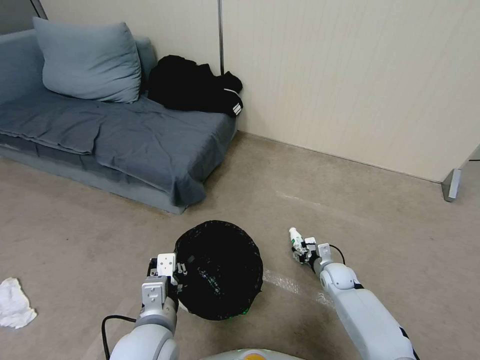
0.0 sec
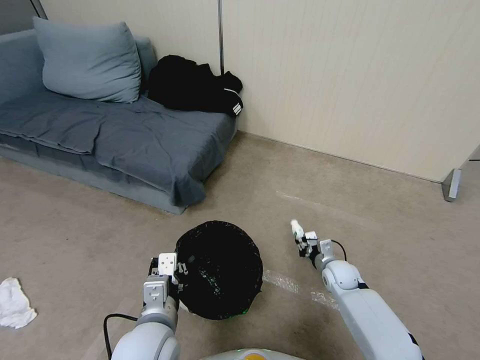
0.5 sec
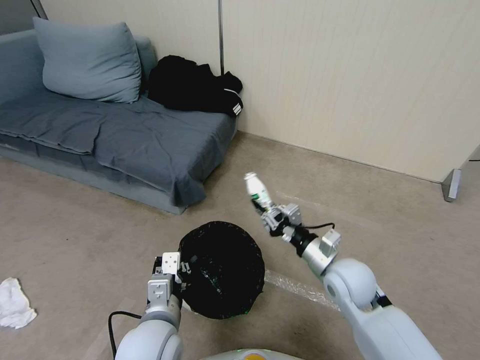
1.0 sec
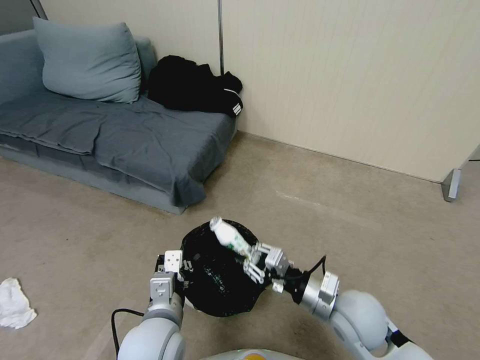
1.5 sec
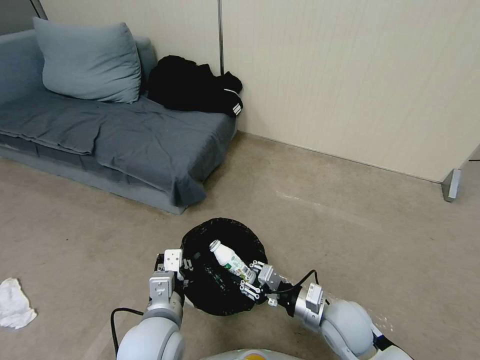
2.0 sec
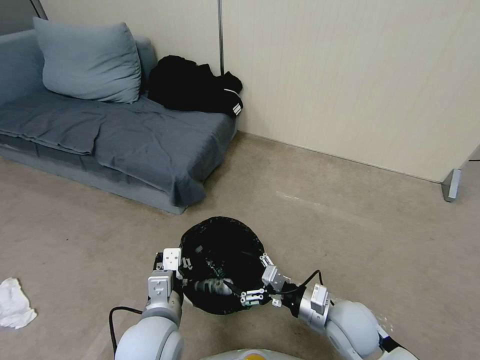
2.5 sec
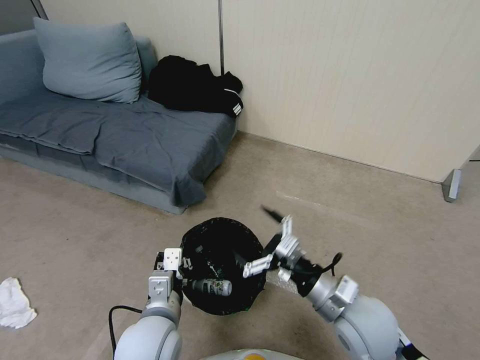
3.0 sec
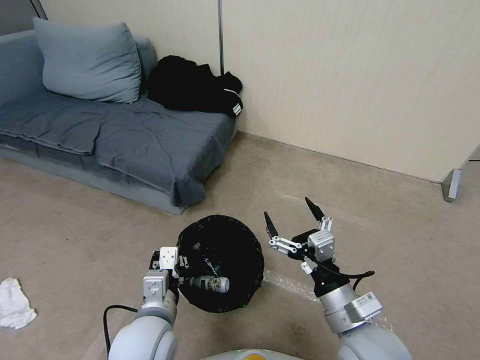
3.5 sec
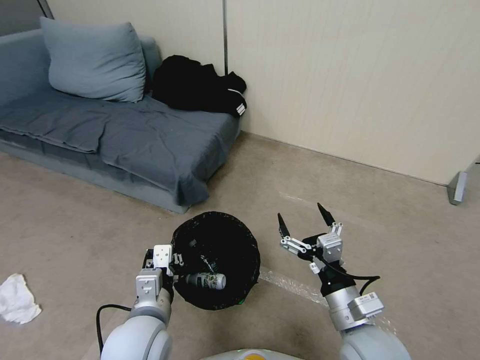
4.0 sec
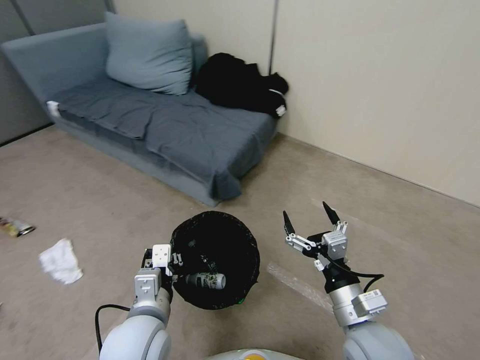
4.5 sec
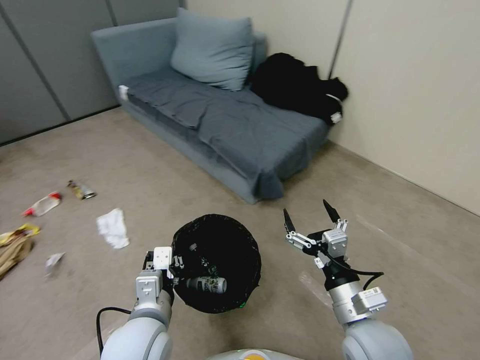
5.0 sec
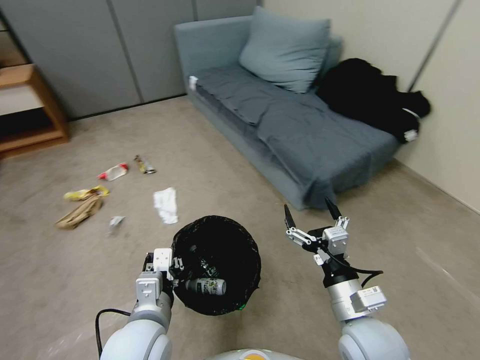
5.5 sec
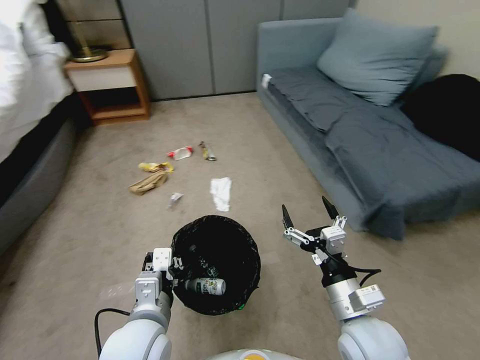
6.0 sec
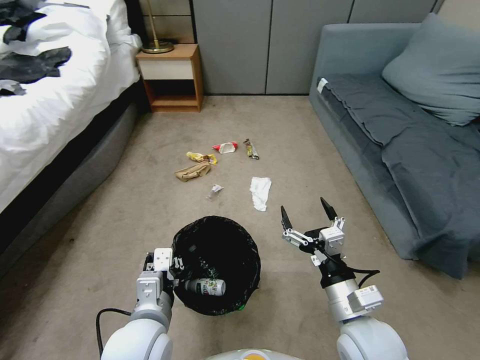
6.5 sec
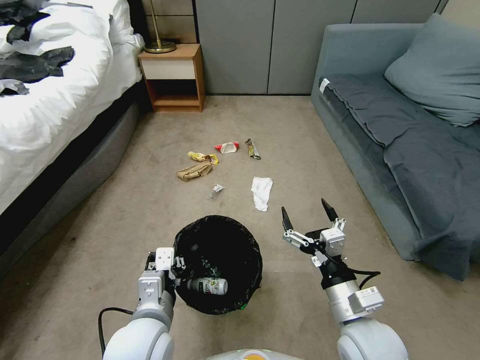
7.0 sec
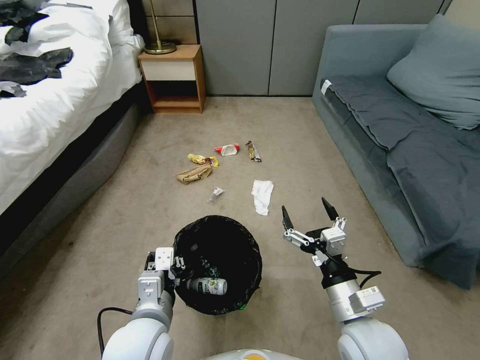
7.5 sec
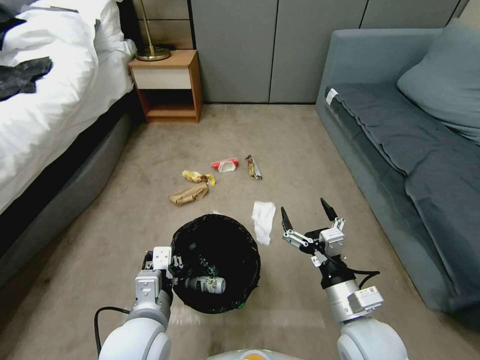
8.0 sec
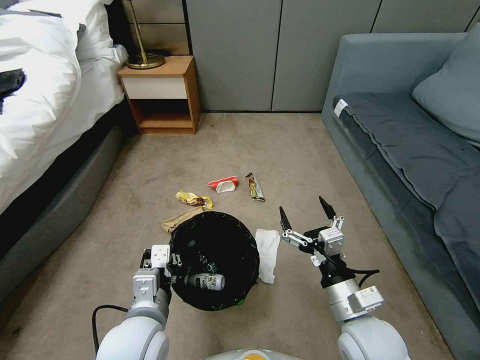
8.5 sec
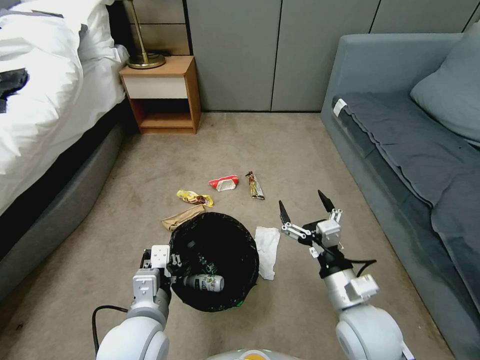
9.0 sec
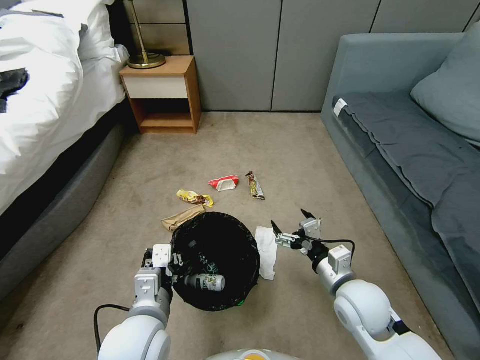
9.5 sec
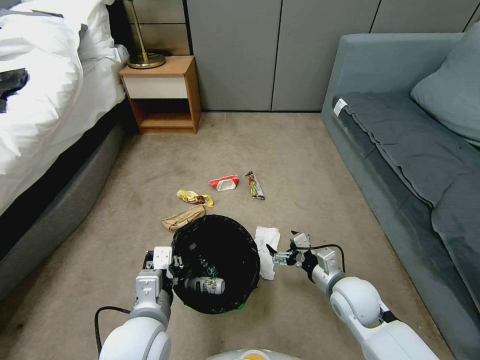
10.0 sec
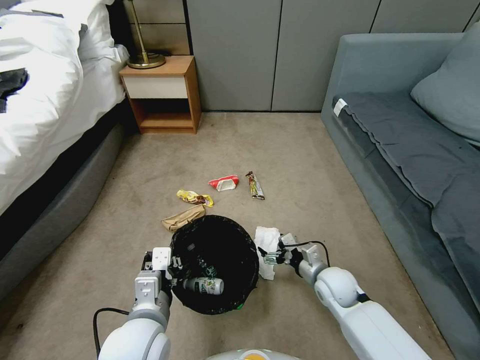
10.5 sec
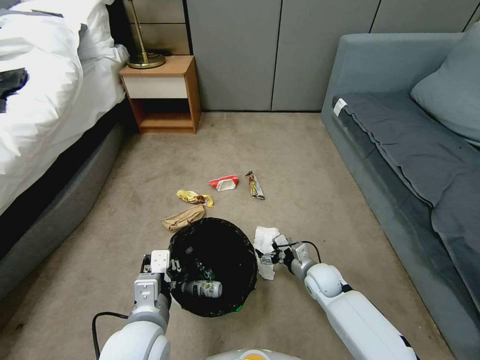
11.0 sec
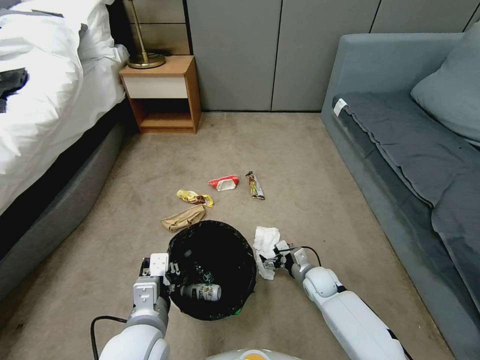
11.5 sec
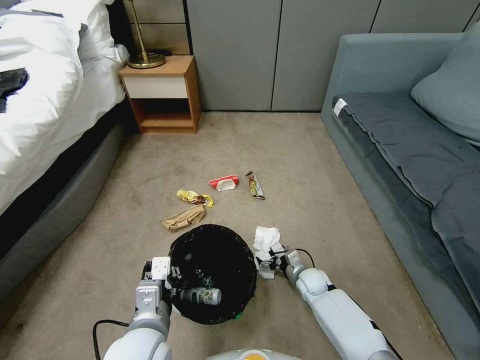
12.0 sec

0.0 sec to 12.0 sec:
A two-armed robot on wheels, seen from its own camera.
Task of the whole recording: Pick up the trash bin, then pick up the garbage from the floor and place it into the trash bin.
0.0 sec to 2.0 sec: The right gripper travels upward, backward and to the left by roughly 20 cm.
2.0 sec to 4.0 sec: The right gripper is displaced upward and backward by about 10 cm, and opens its fingers.
8.0 sec to 10.0 sec: The right gripper is displaced forward and downward by about 15 cm.
10.0 sec to 12.0 sec: The right gripper heads downward and forward, covering about 20 cm.

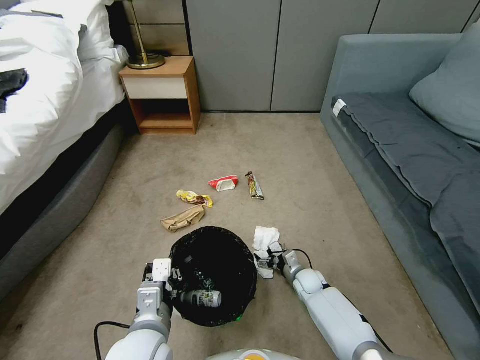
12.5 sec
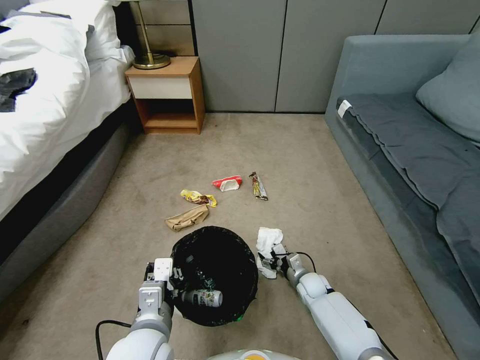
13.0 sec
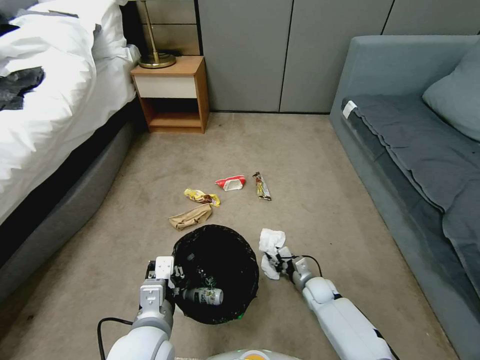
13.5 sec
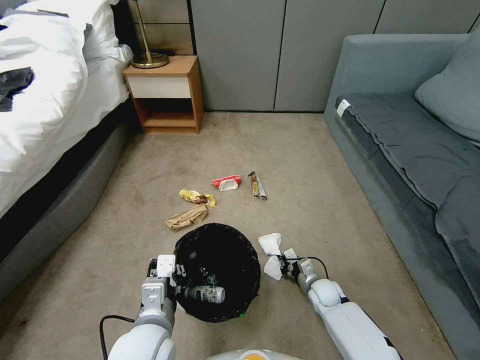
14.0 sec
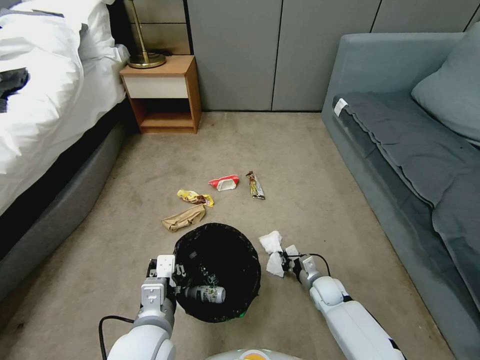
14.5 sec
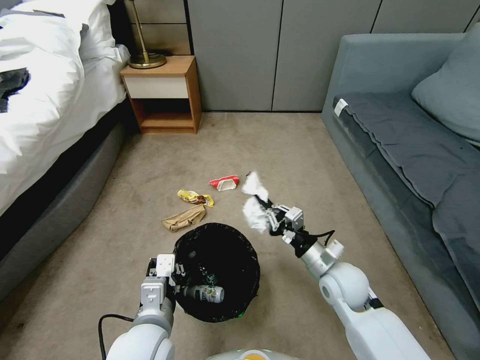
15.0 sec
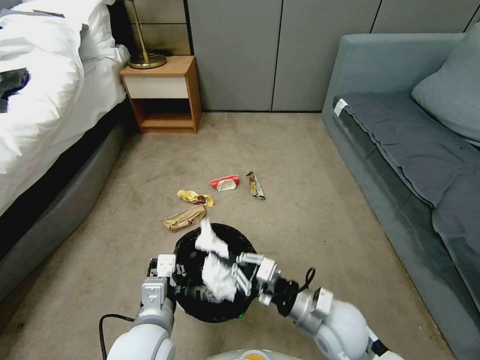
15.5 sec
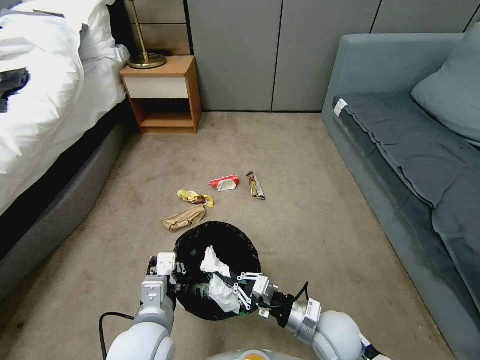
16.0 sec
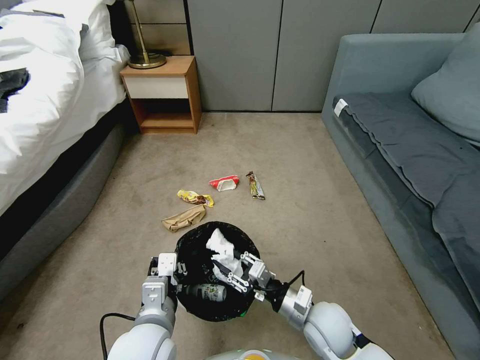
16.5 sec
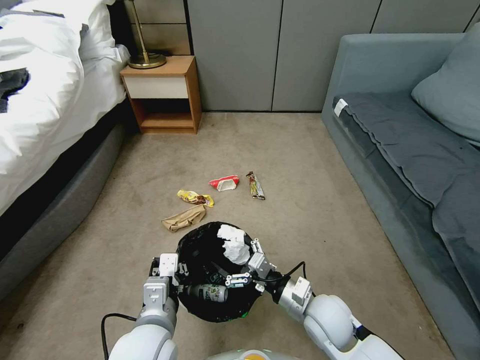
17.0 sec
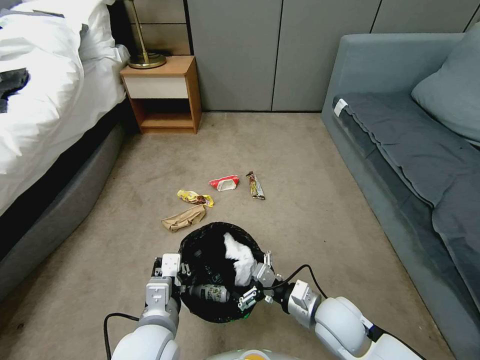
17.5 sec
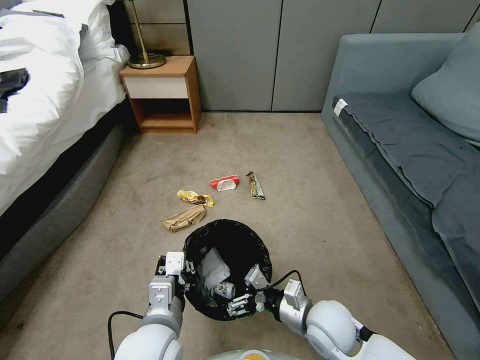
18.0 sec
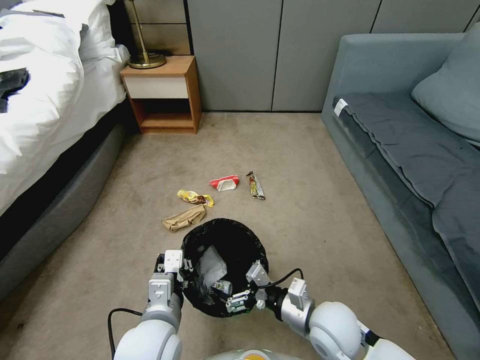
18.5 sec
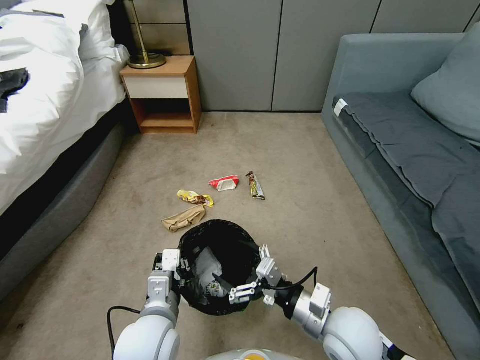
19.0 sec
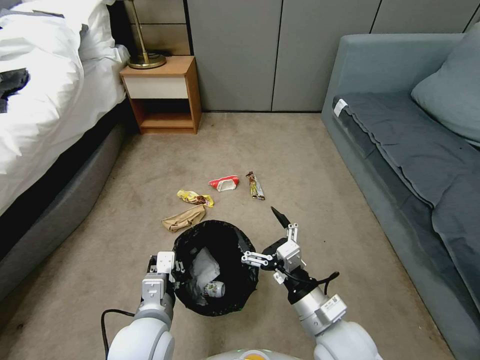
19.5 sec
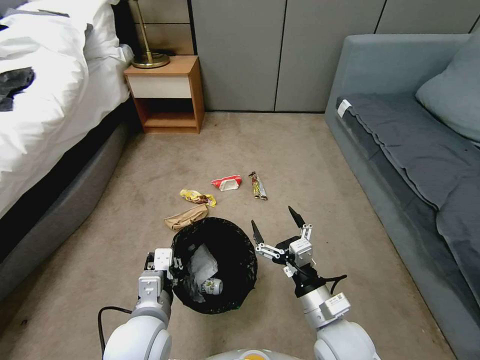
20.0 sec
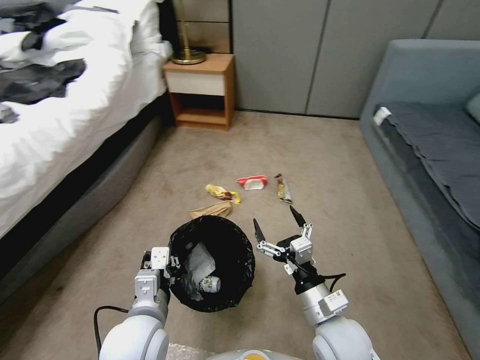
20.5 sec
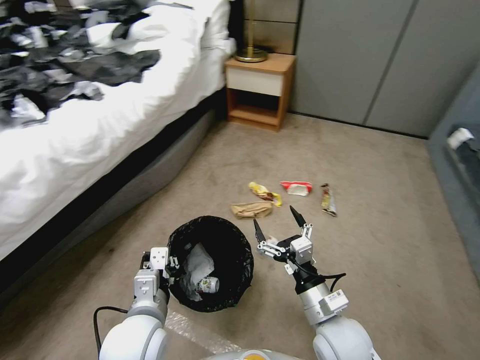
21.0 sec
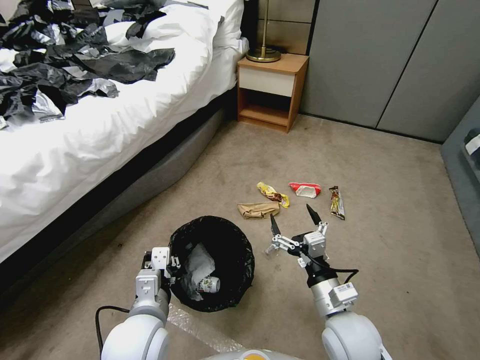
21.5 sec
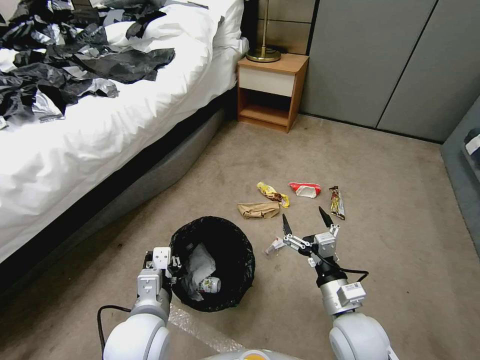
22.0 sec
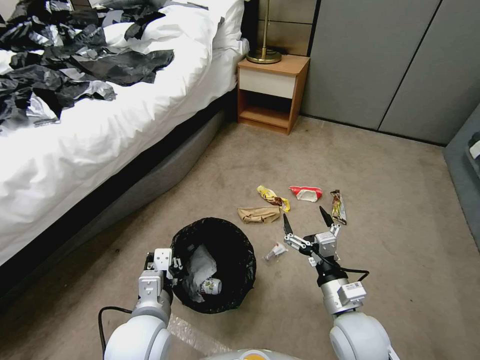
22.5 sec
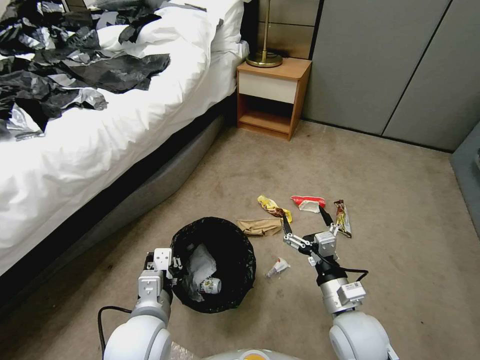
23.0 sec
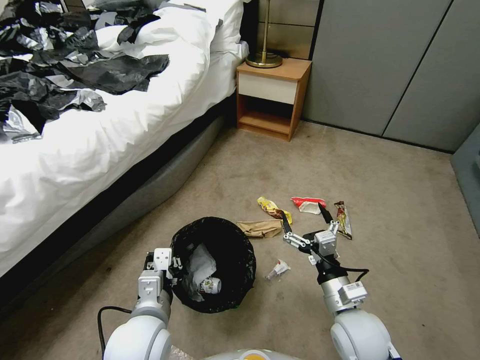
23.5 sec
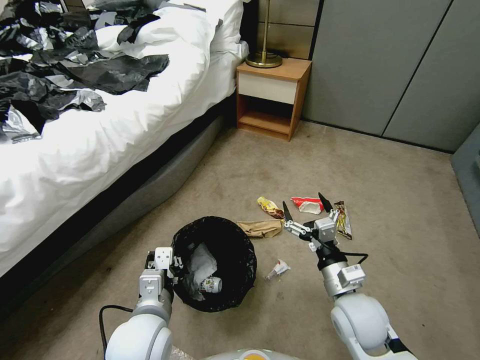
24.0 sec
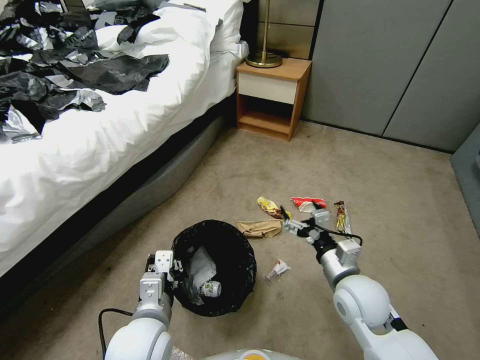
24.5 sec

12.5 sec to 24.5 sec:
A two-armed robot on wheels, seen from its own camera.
Task of the whole recording: Pick up the trash bin, then pick up the garbage from the floor and place it into the trash bin.
12.5 sec to 14.5 sec: The right gripper changes place by approximately 5 cm, and closes up.
14.5 sec to 16.5 sec: The right gripper goes approximately 20 cm upward, backward and to the left, and opens up.
16.5 sec to 18.5 sec: The right gripper opens up.
22.5 sec to 24.5 sec: The right gripper heads forward, covering about 5 cm.

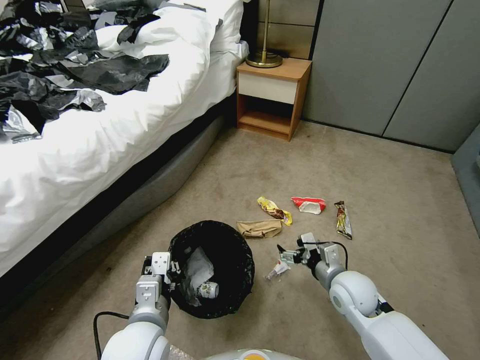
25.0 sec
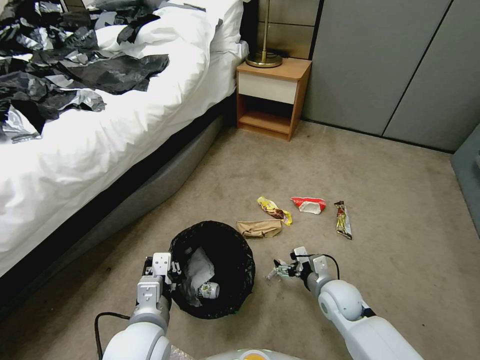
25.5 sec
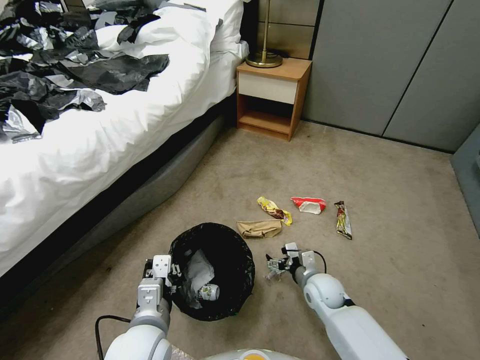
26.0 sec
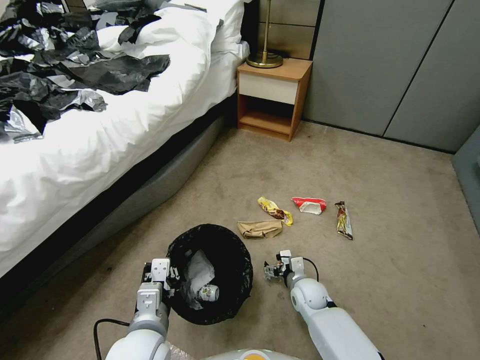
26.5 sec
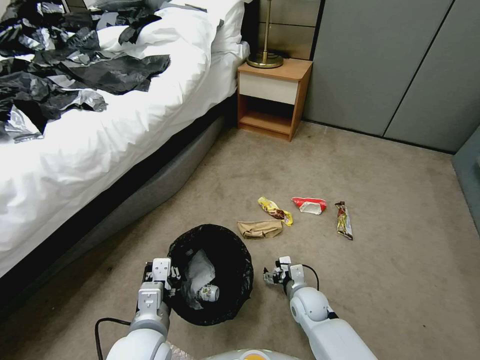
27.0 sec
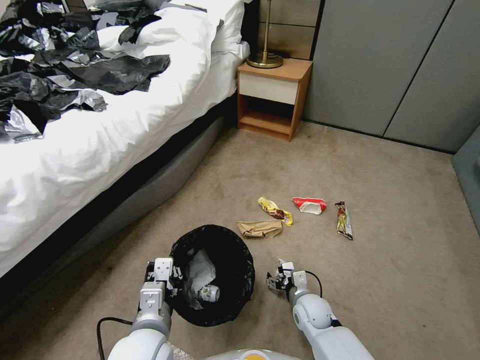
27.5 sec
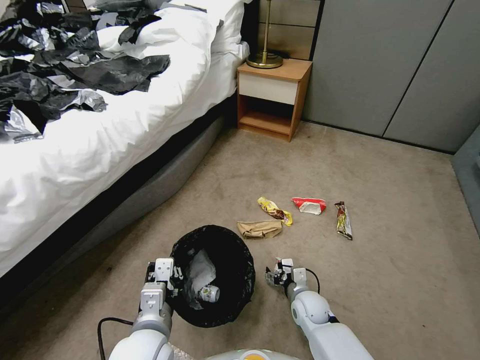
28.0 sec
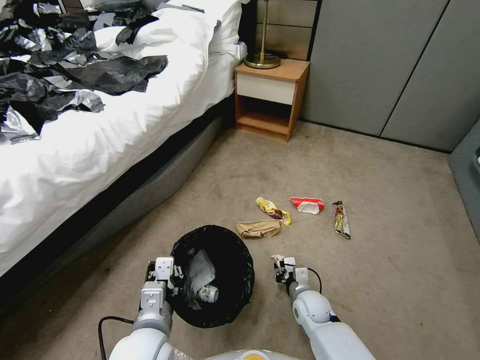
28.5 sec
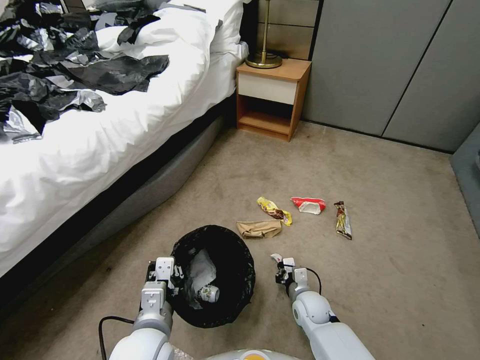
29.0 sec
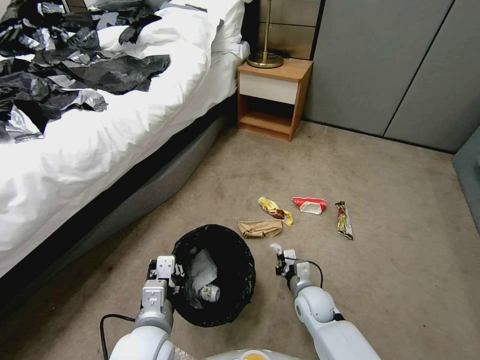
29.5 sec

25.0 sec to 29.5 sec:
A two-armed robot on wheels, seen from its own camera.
Task of the whole recording: Pick up the trash bin, then pick up the garbage from the floor and place it into the trash bin.
25.0 sec to 27.0 sec: The right gripper shifts approximately 15 cm downward and to the left.
27.0 sec to 29.5 sec: The right gripper closes its fingers.
